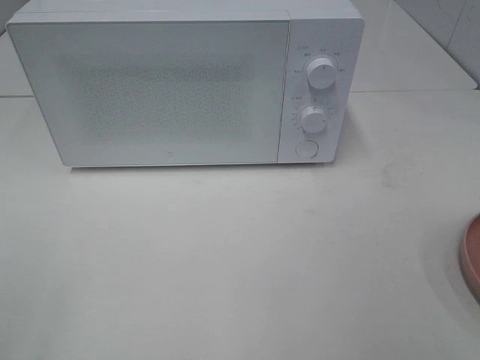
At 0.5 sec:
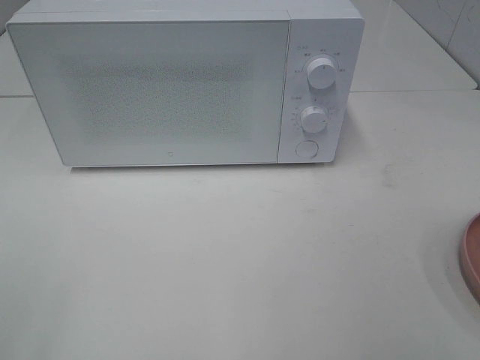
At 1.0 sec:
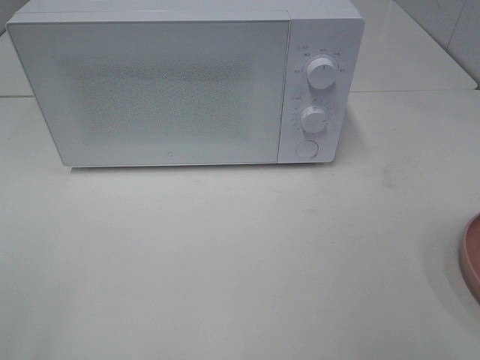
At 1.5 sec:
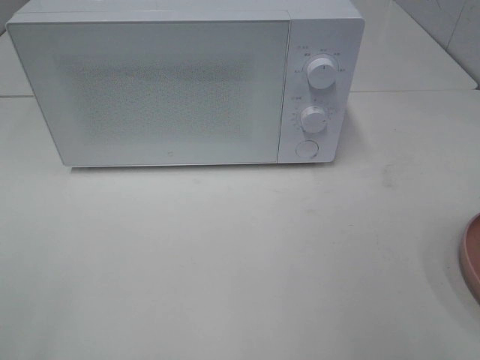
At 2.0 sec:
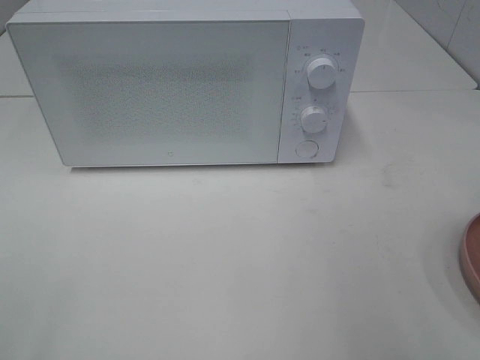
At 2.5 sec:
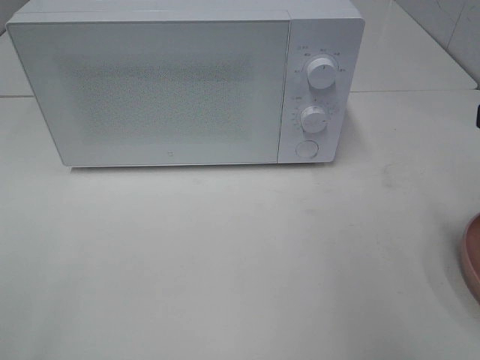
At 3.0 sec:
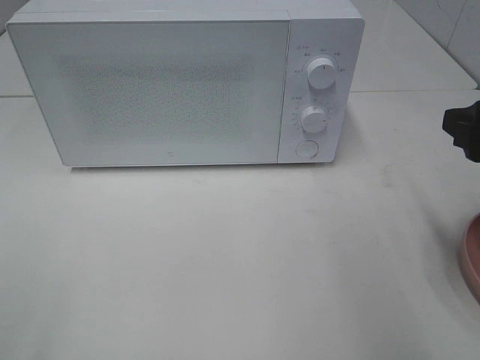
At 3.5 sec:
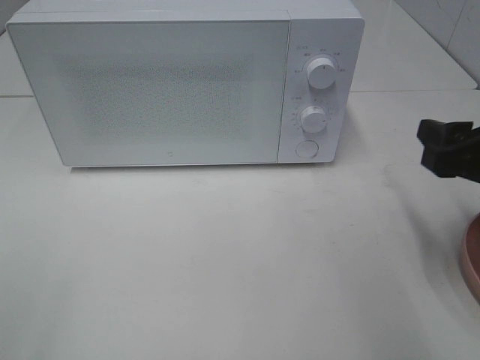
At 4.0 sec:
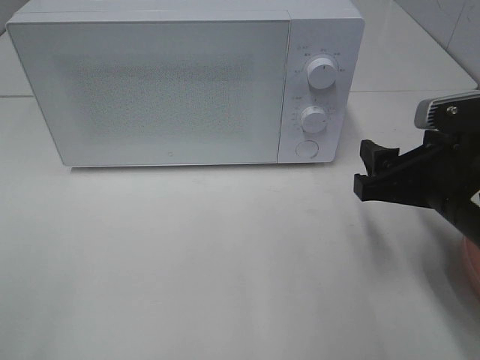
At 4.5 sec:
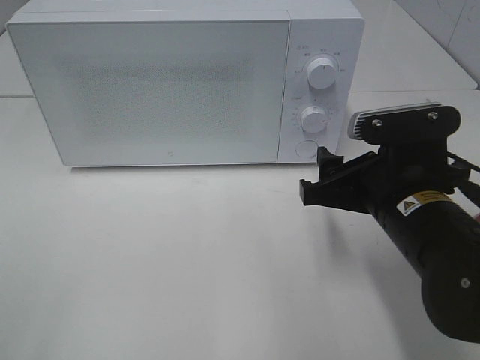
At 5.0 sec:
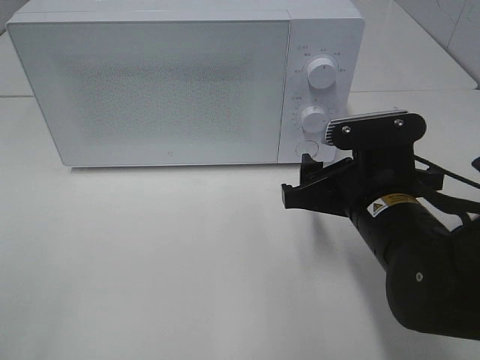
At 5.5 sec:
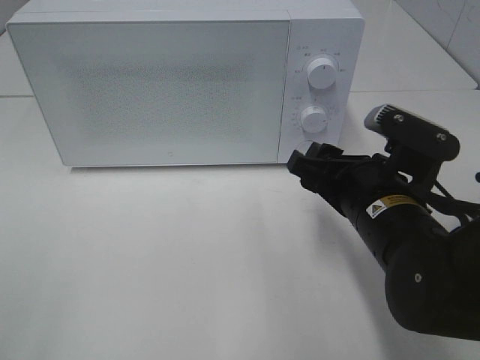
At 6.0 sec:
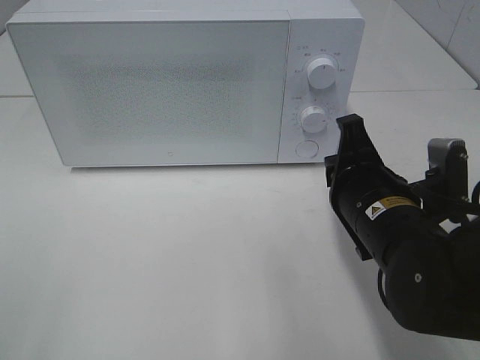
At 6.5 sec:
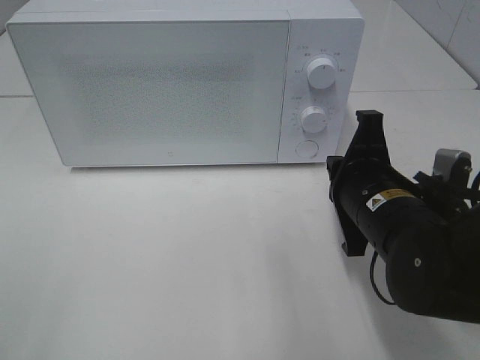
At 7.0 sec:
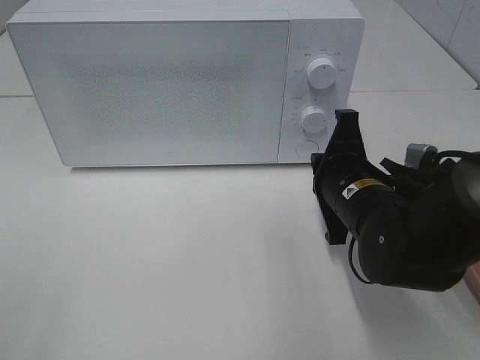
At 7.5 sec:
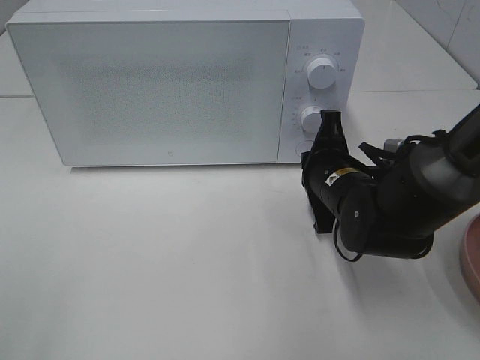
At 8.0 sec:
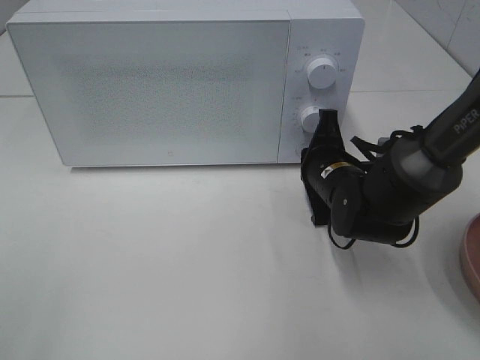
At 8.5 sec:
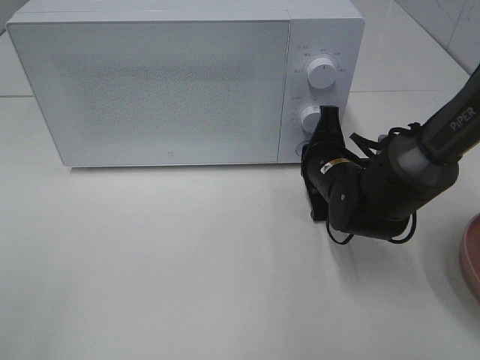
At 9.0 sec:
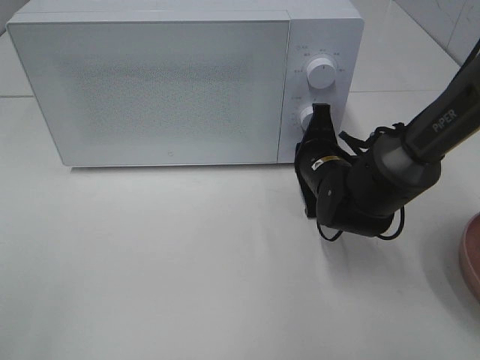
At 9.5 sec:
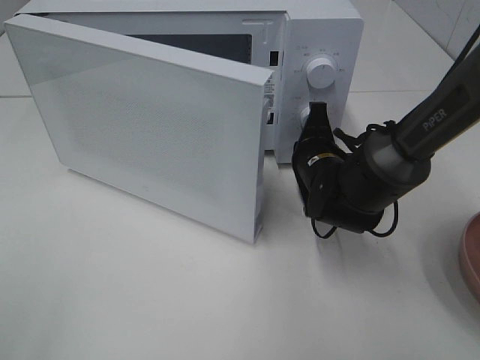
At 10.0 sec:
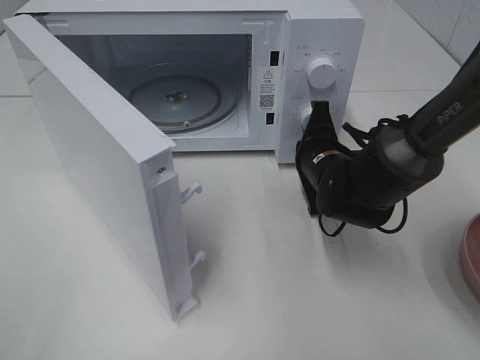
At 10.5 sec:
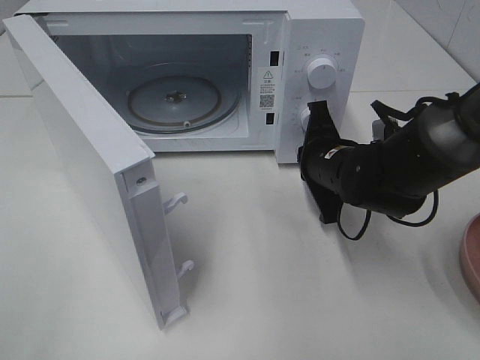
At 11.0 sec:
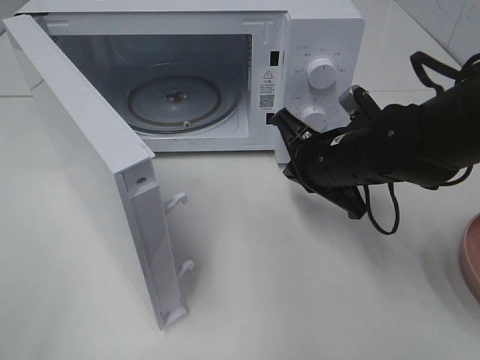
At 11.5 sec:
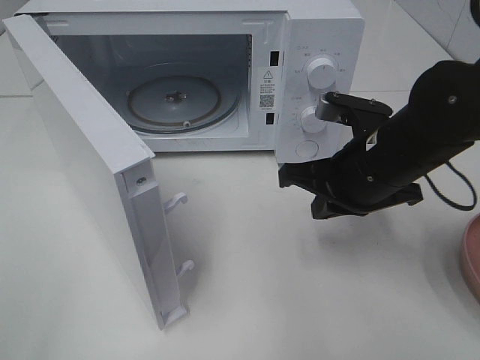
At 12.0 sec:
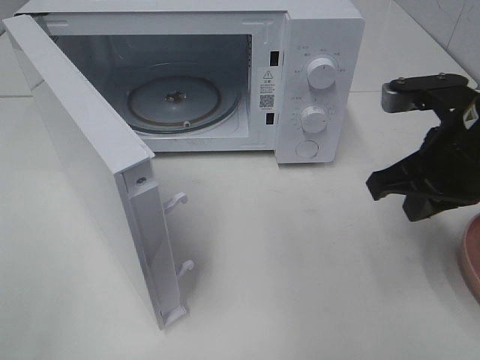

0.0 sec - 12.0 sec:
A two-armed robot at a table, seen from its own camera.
Task of the whole recording: Heat the burger.
Step, 0.0 sec - 10.5 sec: Right hand: press the switch.
2.0 sec - 4.0 sec: The right gripper travels downward, forward and to the left by roughly 15 cm.
4.0 sec - 6.0 sec: The right gripper moves to the left, approximately 5 cm, and closes.
6.0 sec - 8.0 sec: The right gripper travels forward and downward by roughly 15 cm.
10.0 sec - 12.0 sec: The right gripper is displaced upward, backward and to the right by approximately 20 cm.

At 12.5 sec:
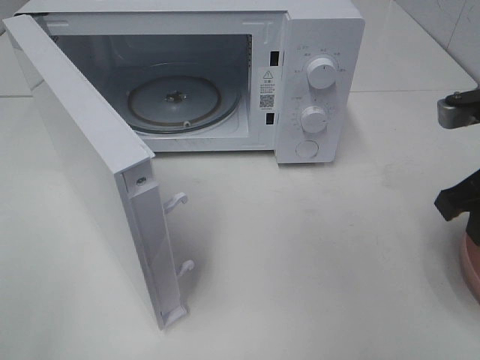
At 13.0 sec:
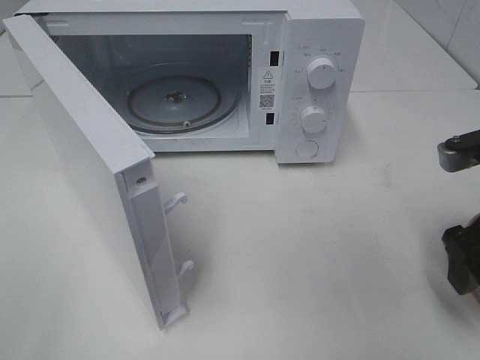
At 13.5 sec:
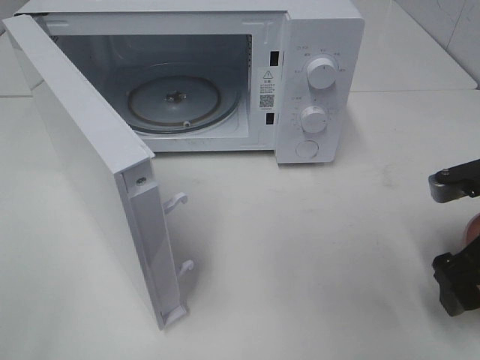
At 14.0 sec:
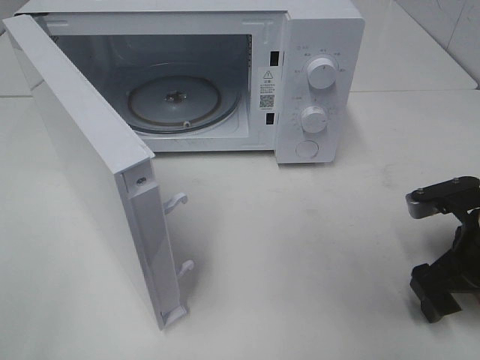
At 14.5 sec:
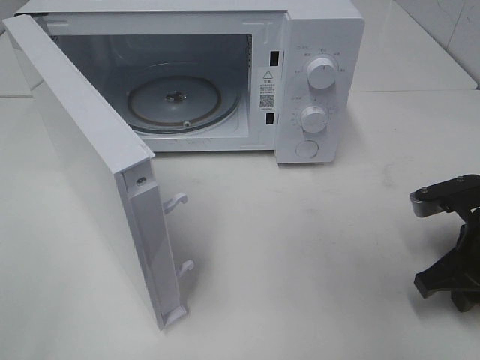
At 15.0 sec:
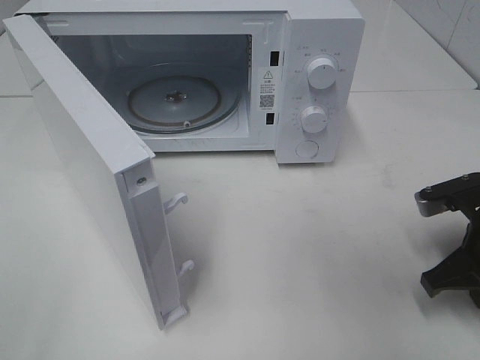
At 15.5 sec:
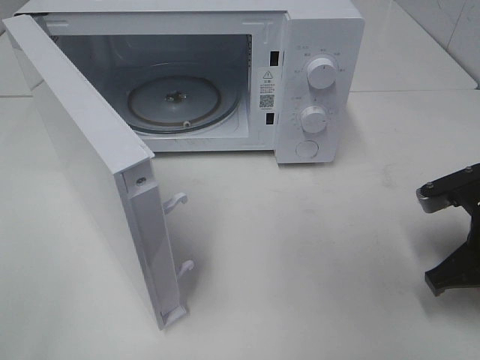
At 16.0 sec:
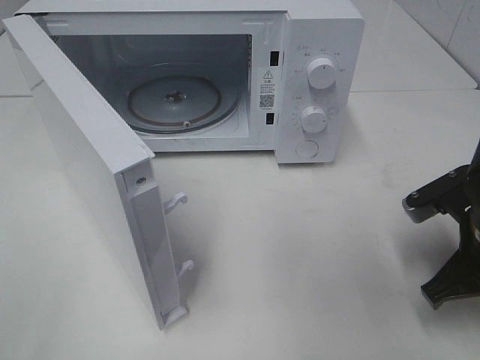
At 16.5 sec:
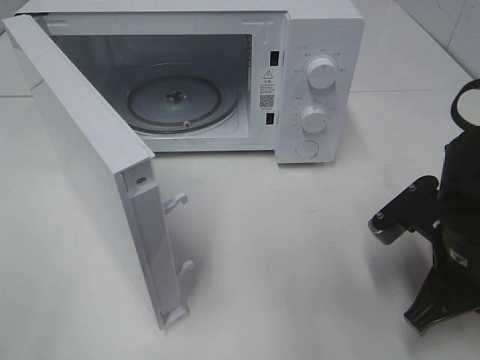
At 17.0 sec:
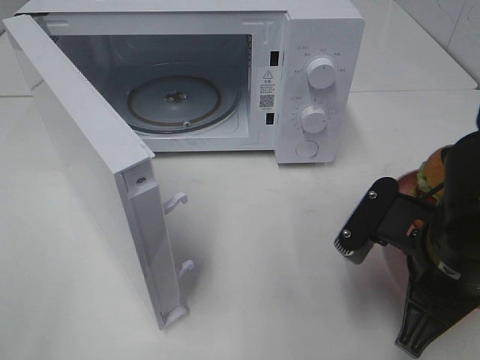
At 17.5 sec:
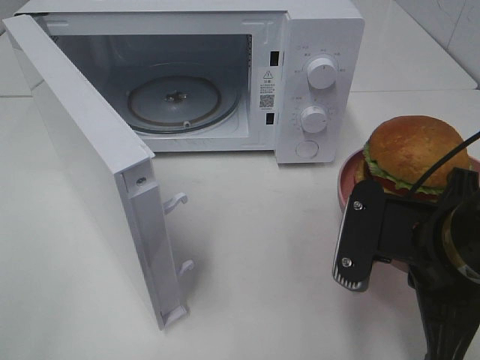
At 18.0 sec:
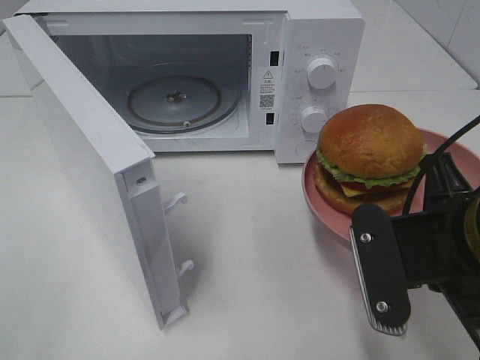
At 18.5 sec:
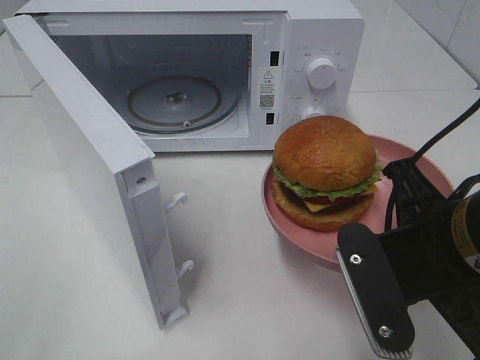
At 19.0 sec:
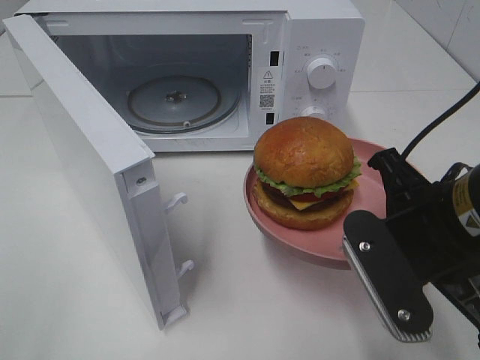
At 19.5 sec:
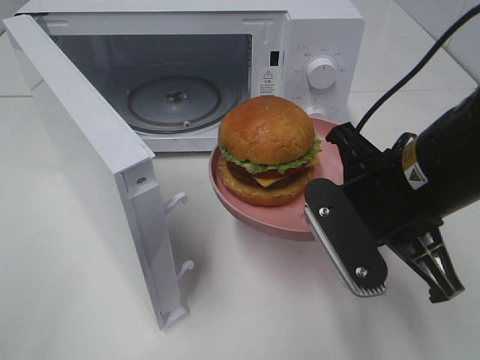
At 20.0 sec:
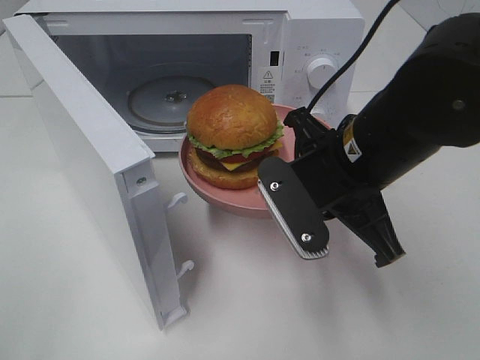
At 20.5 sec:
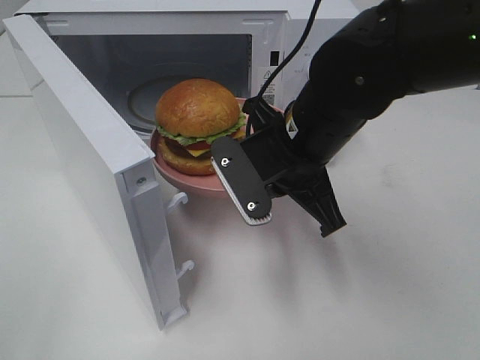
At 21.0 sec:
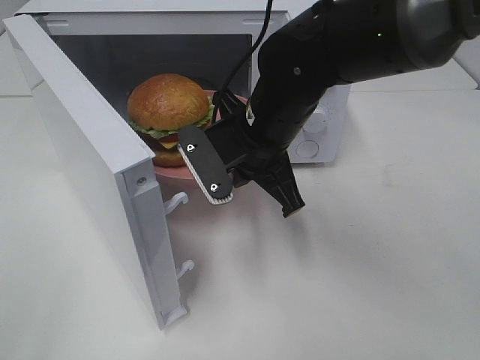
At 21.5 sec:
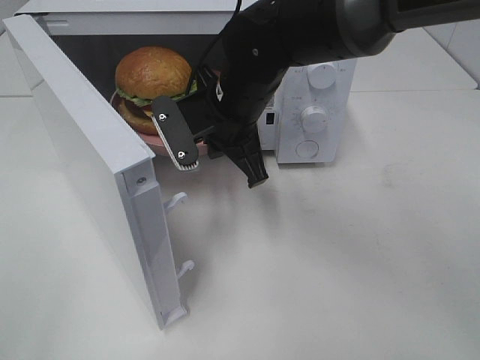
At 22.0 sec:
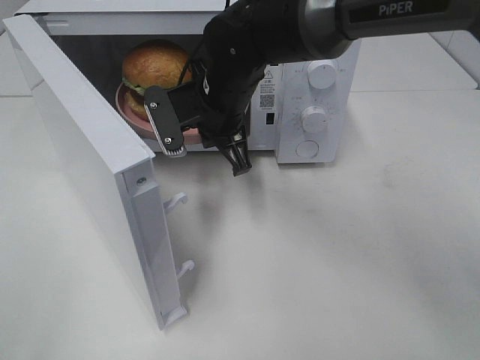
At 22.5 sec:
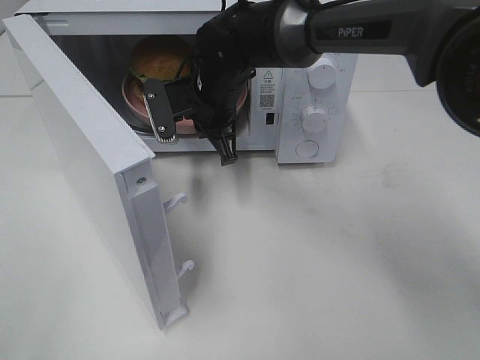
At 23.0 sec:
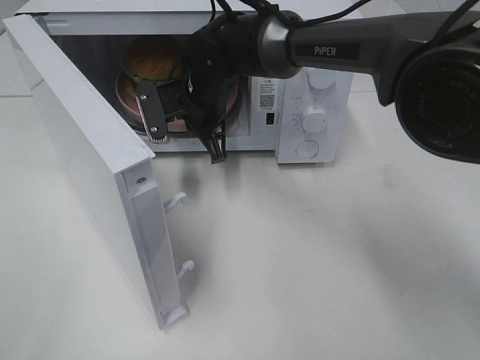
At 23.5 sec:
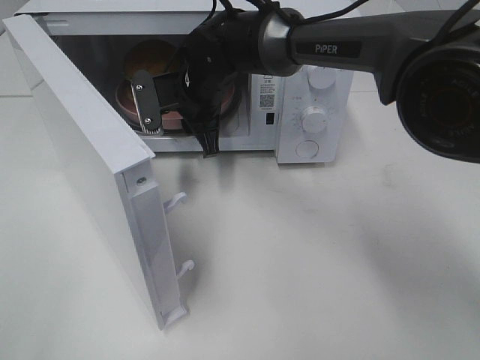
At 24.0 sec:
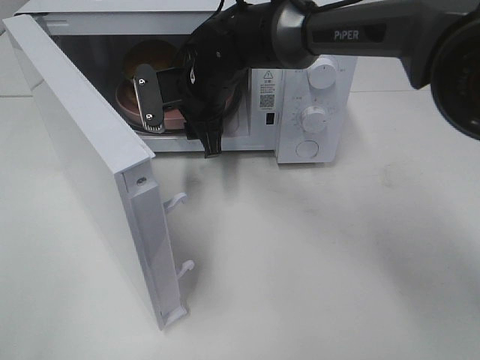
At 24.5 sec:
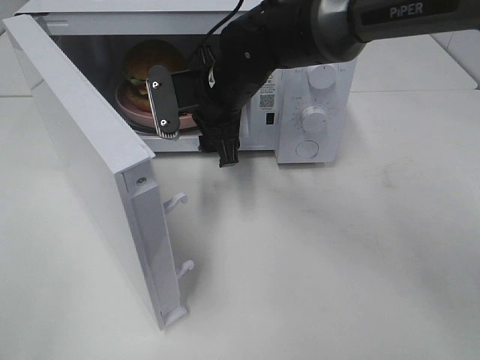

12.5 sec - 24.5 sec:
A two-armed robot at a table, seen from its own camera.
Task of the whole recording: Heat the burger.
Step, 12.5 sec - 15.0 sec: Right hand: grab the plate with the hamburger.
Step, 15.5 sec - 23.5 sec: Right hand: place the plate in the microwave.
12.5 sec - 14.5 sec: The right gripper moves downward, some 10 cm, and opens, then closes once more.
14.5 sec - 16.5 sec: The right gripper goes roughly 5 cm to the left.
16.5 sec - 18.5 sec: The right gripper shifts about 5 cm upward.
18.5 sec - 20.5 sec: The right gripper heads forward and to the left, covering some 15 cm.
20.5 sec - 22.5 sec: The right gripper travels forward and to the left by approximately 15 cm.
22.5 sec - 24.5 sec: The right gripper opens up.

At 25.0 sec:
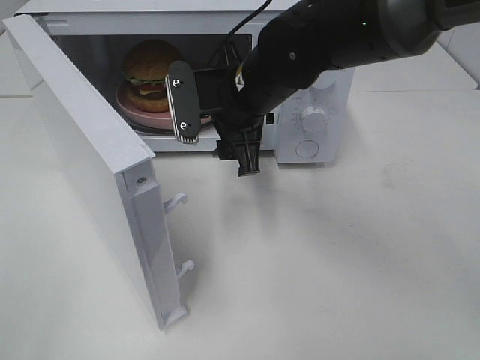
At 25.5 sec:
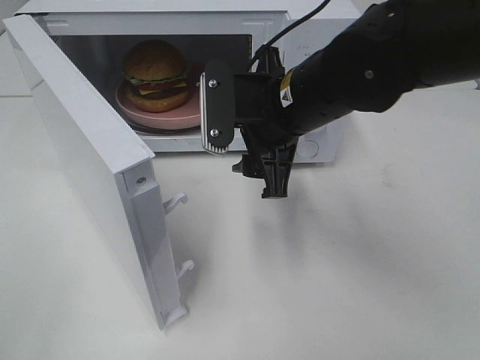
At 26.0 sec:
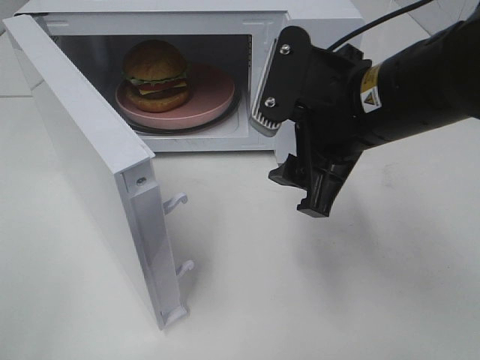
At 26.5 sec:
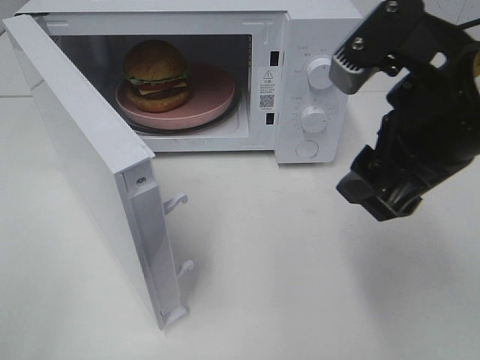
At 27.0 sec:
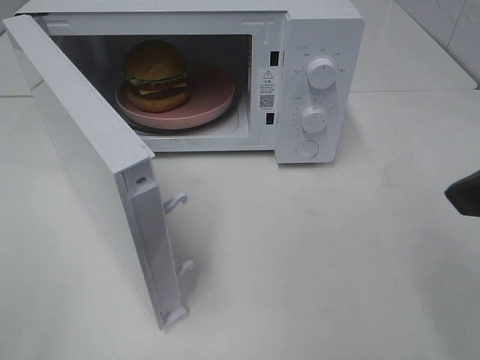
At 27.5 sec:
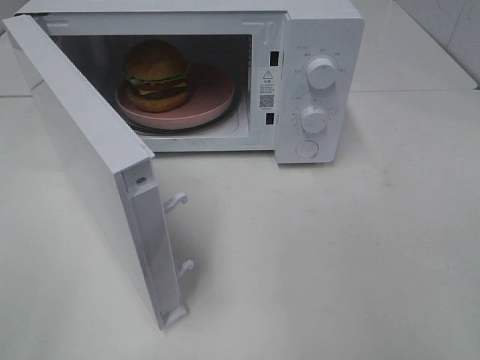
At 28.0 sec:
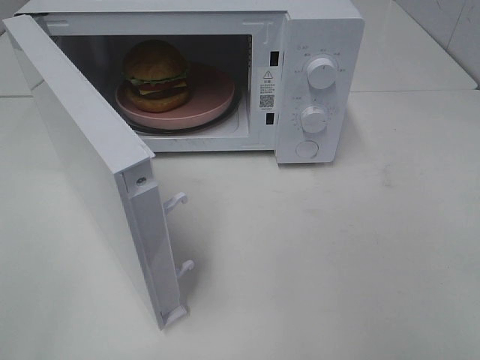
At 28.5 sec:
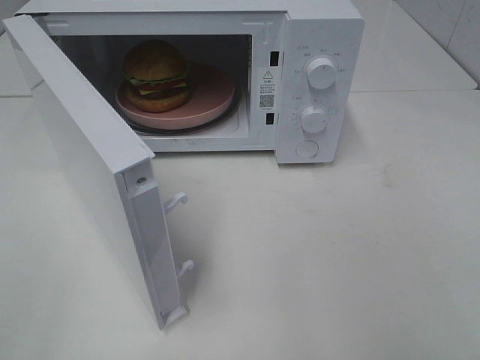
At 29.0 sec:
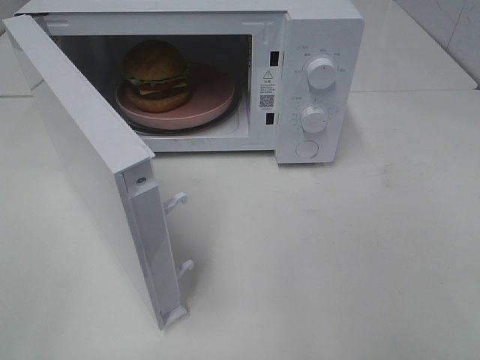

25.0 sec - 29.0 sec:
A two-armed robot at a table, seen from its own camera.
Task of the whole recording: Heat the burger.
25.0 sec - 27.0 sec: The right gripper travels backward, to the right and upward by roughly 30 cm.
27.0 sec - 29.0 sec: The right gripper travels backward and to the right by some 15 cm.
